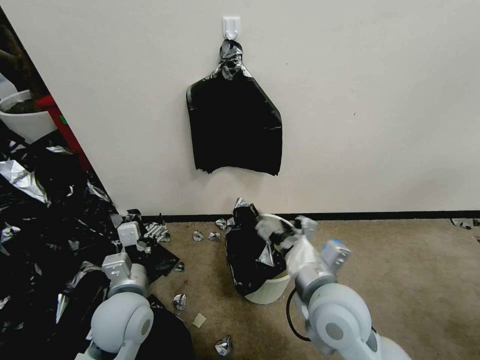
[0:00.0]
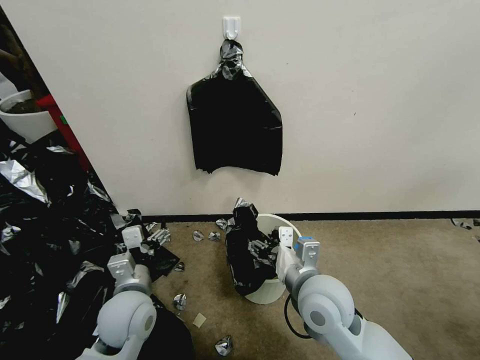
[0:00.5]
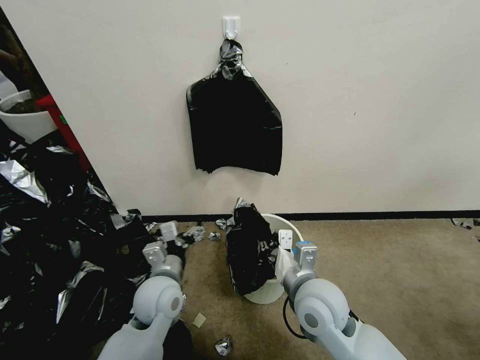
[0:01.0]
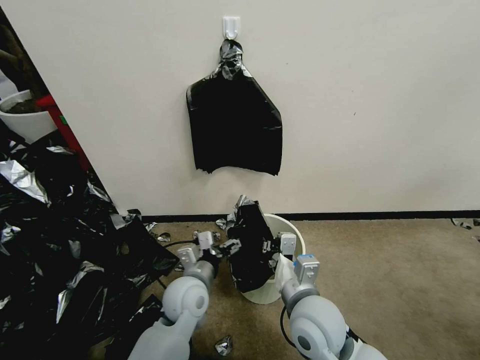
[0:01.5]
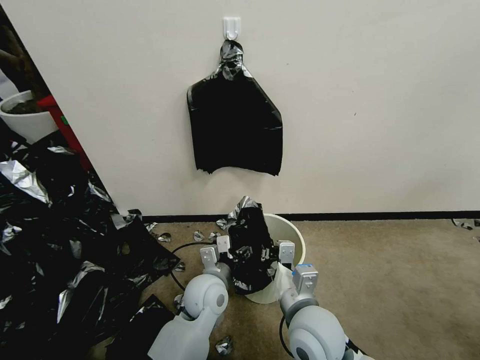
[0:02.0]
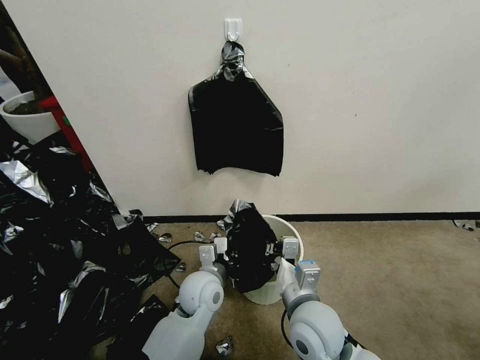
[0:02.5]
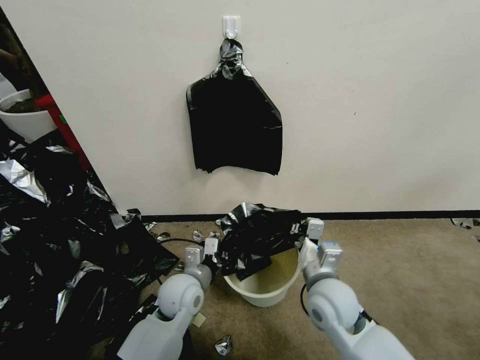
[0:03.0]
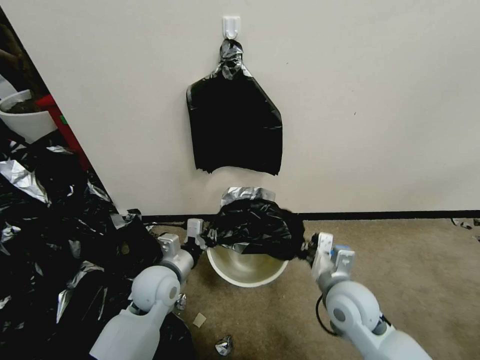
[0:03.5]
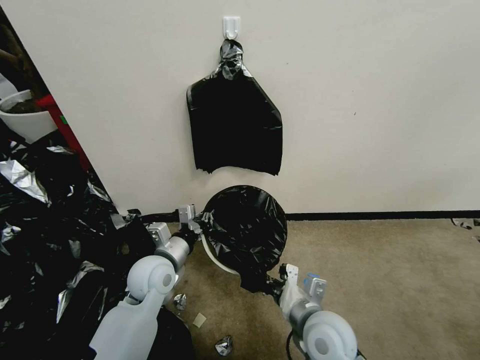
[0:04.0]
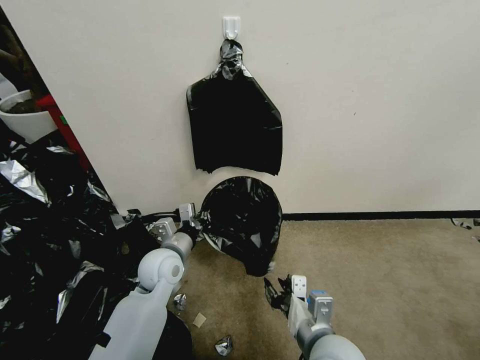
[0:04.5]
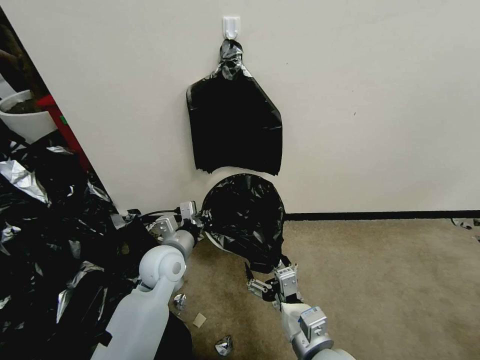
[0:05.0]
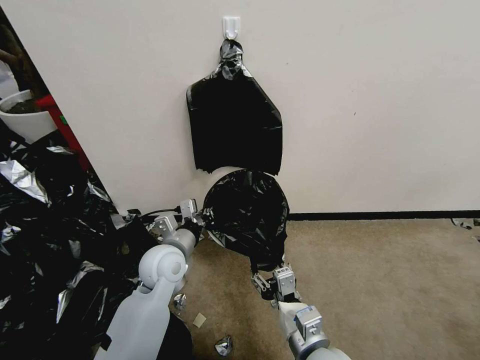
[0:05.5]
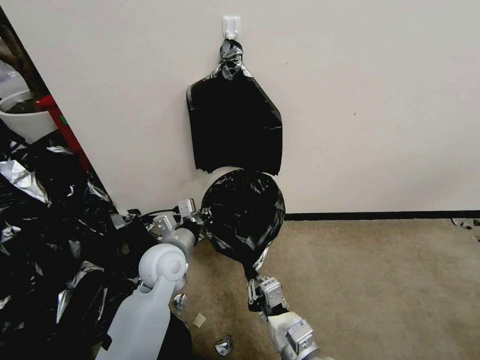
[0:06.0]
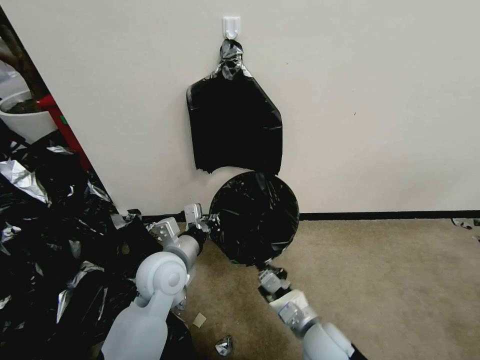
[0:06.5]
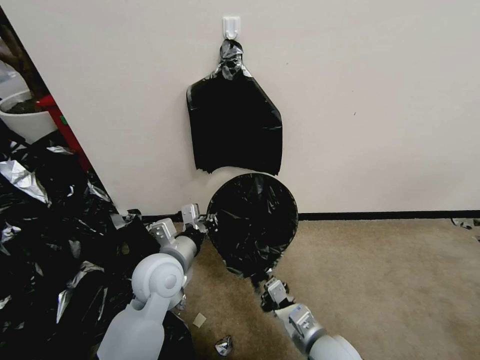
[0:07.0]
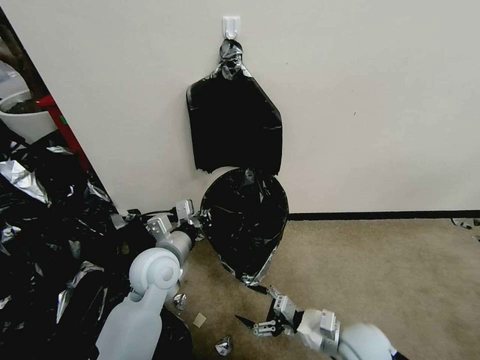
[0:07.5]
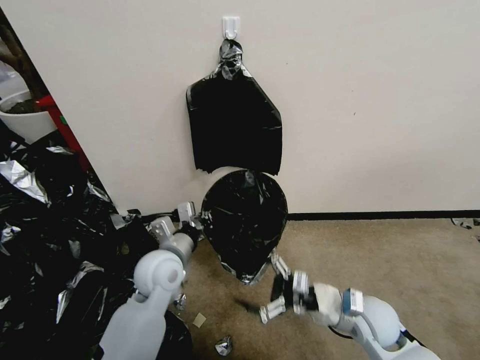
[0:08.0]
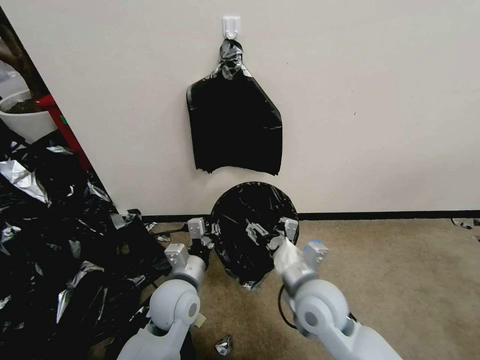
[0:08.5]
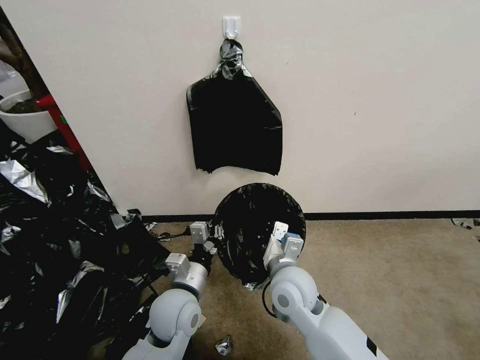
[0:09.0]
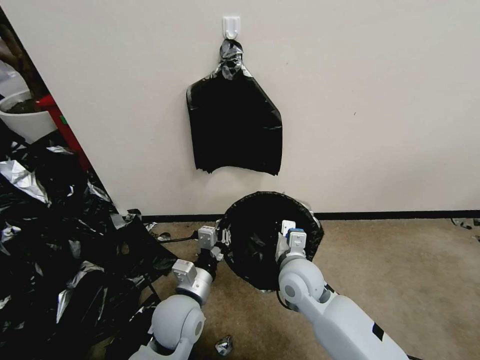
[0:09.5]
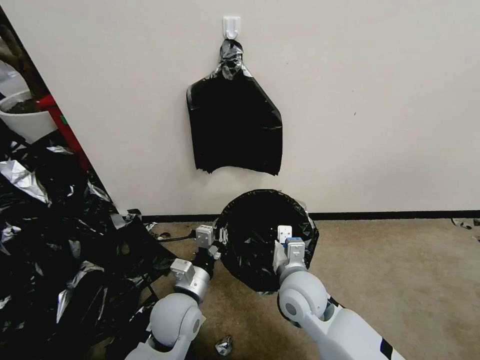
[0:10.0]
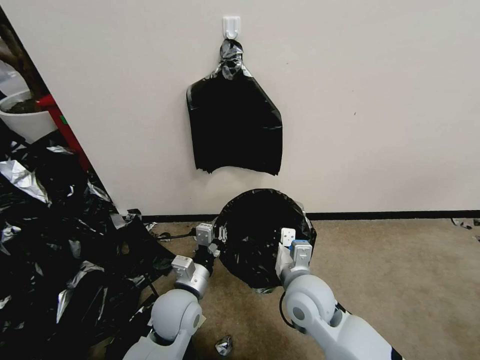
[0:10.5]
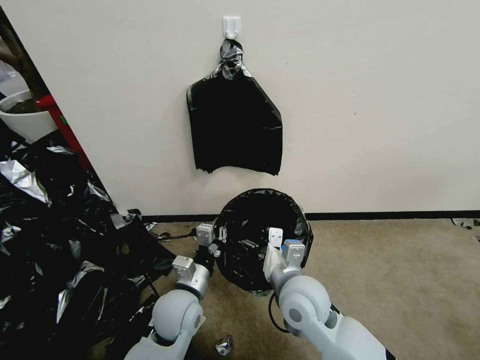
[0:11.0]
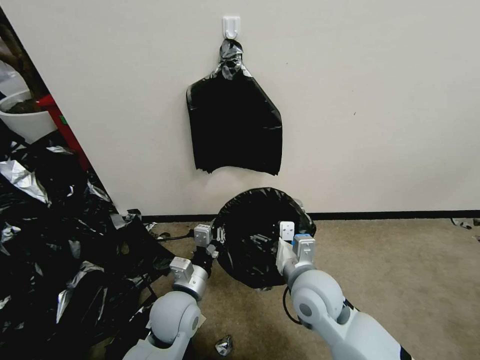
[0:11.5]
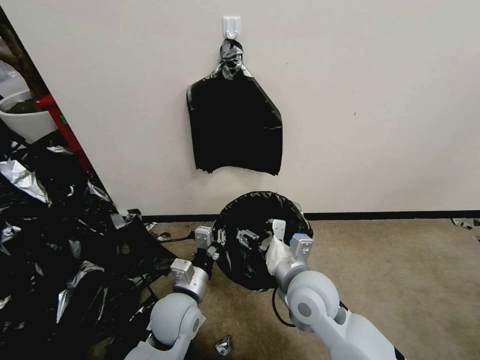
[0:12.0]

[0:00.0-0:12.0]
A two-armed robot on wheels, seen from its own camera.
Task of the whole recording: Place a trash bag onto the trash bin.
0:00.0 to 0:02.0: The right gripper is displaced downward by approximately 5 cm, and closes; the left gripper travels to the right, downward and forward by some 15 cm.
0:02.0 to 0:04.0: The left gripper heads to the left and upward, covering some 15 cm, and closes.
0:04.0 to 0:06.0: The right gripper shifts about 5 cm backward, and opens and closes again.
0:06.0 to 0:08.0: The right gripper is displaced to the right and forward by about 15 cm, and opens its fingers.
0:08.0 to 0:10.0: The left gripper moves backward and downward, roughly 10 cm, while the right gripper goes about 15 cm to the left, and closes up.
0:10.0 to 0:12.0: The right gripper opens up.

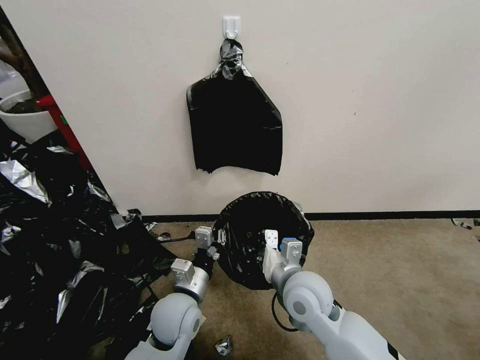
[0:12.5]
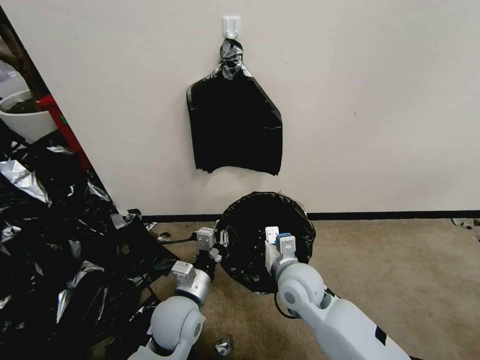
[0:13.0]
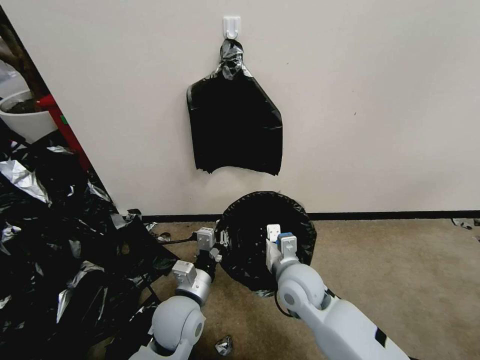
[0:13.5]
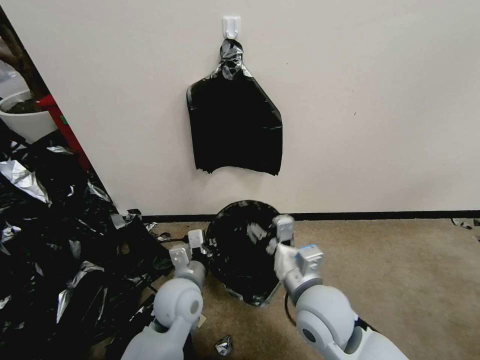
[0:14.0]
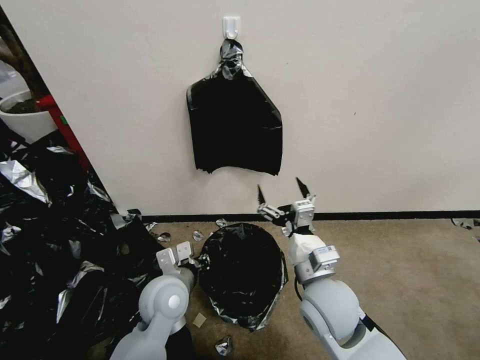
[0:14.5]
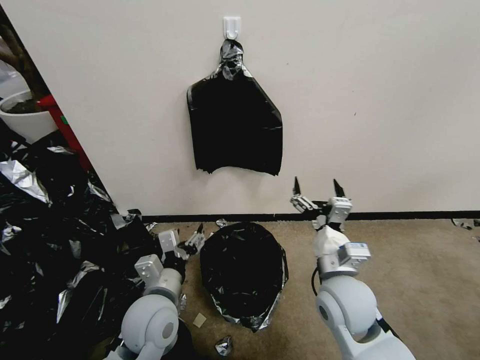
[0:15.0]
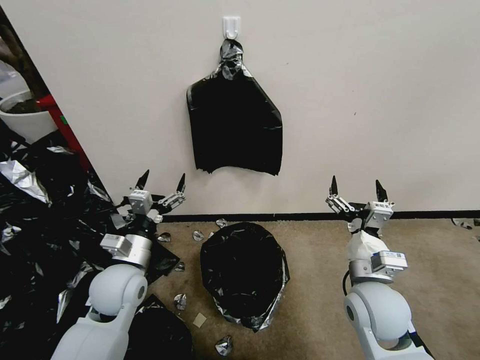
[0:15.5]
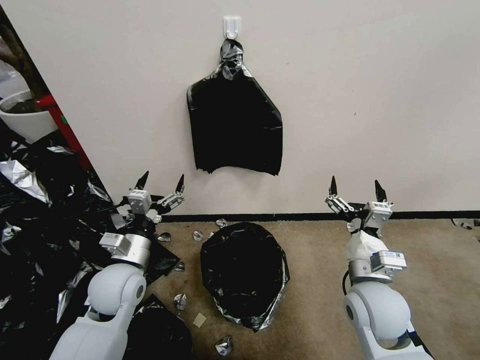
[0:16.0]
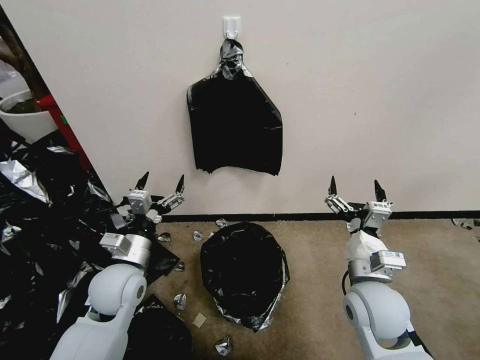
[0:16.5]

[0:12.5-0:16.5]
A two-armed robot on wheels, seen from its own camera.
Task of the whole recording: Place a trash bag onto the trash bin.
0:12.5 to 0:14.5: The right gripper opens. Meanwhile the left gripper changes place by some 5 cm.
0:14.5 to 0:16.5: The left gripper heads to the left, covering about 10 cm, and opens; the right gripper shifts about 10 cm to the right.
